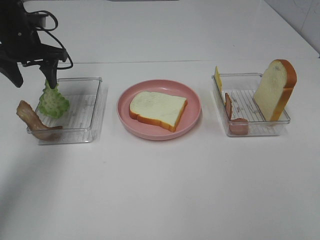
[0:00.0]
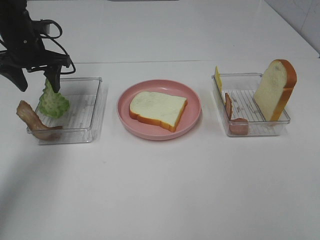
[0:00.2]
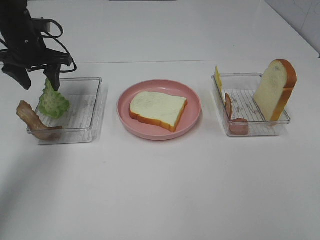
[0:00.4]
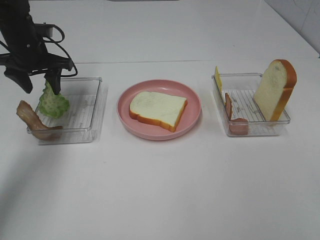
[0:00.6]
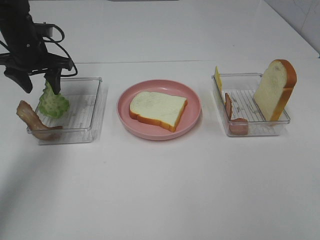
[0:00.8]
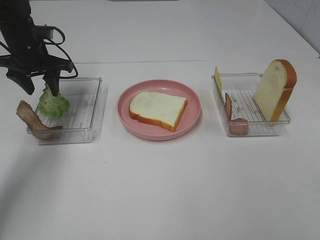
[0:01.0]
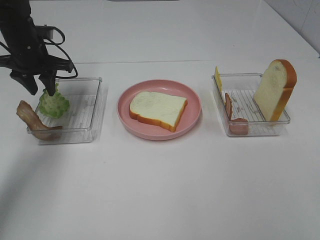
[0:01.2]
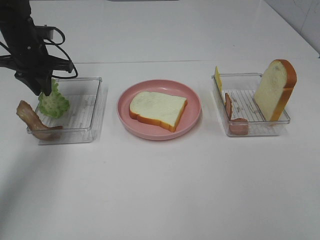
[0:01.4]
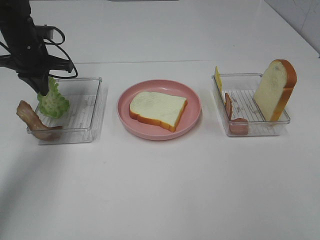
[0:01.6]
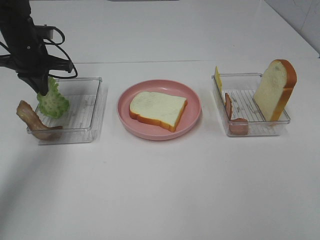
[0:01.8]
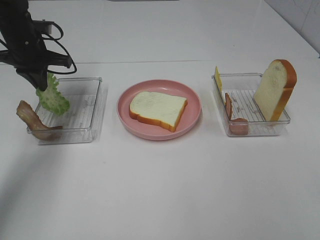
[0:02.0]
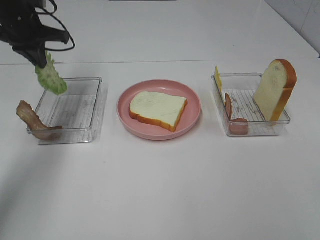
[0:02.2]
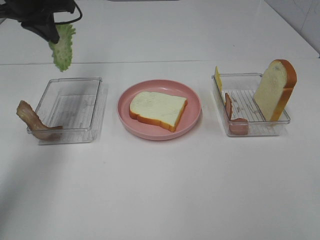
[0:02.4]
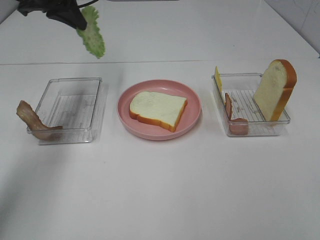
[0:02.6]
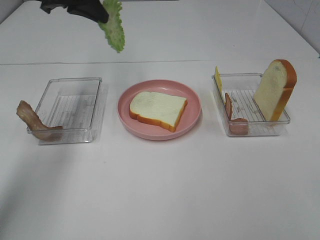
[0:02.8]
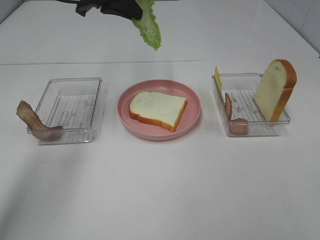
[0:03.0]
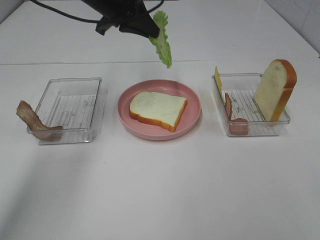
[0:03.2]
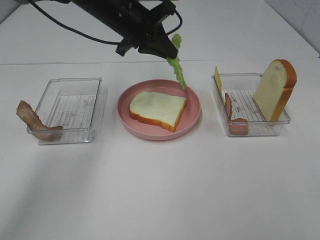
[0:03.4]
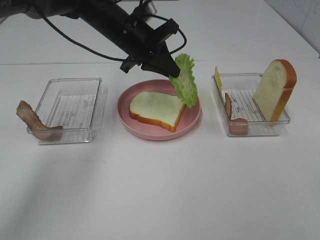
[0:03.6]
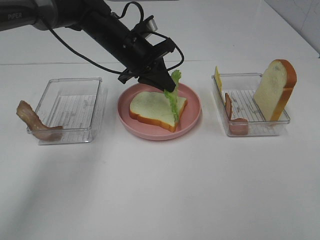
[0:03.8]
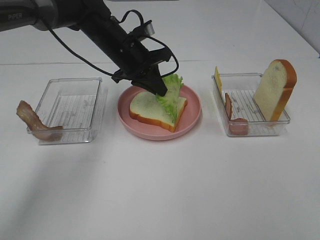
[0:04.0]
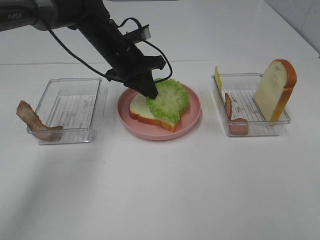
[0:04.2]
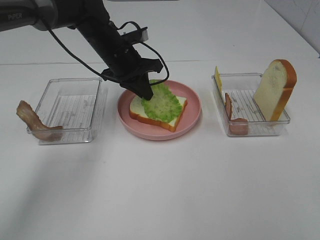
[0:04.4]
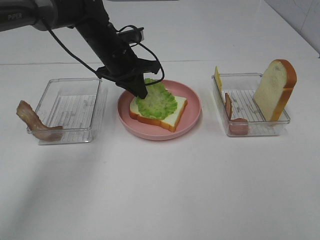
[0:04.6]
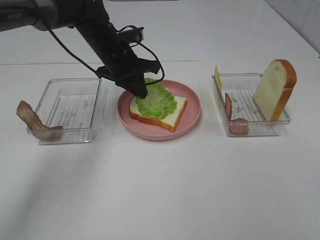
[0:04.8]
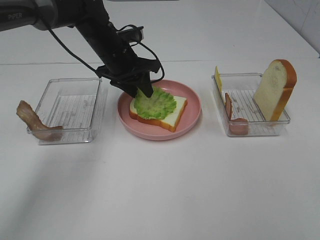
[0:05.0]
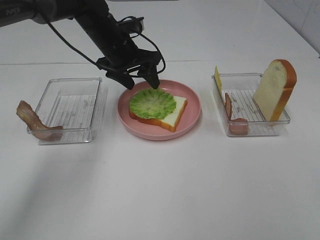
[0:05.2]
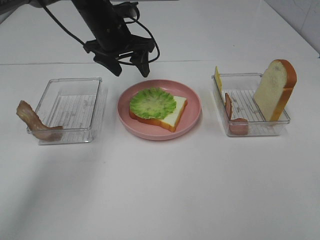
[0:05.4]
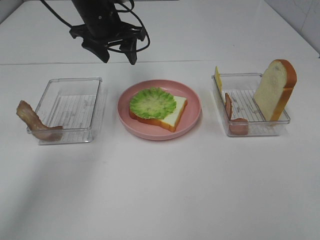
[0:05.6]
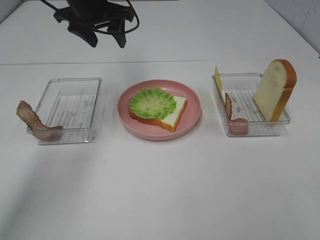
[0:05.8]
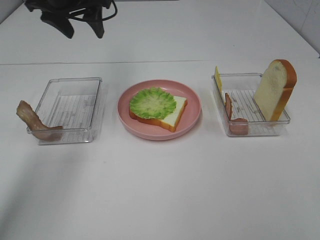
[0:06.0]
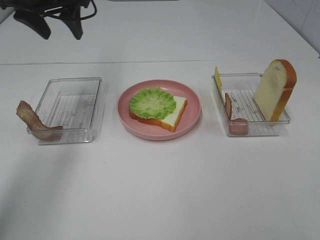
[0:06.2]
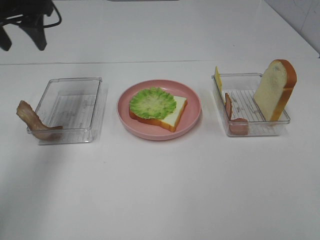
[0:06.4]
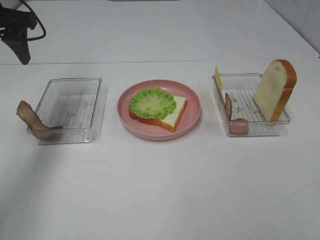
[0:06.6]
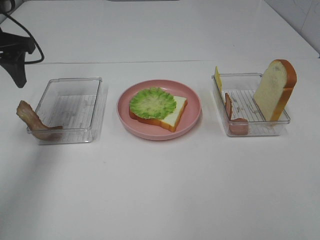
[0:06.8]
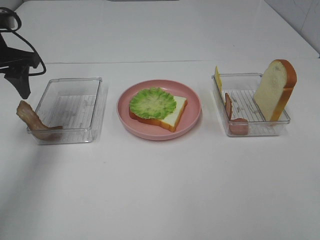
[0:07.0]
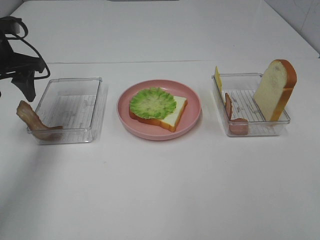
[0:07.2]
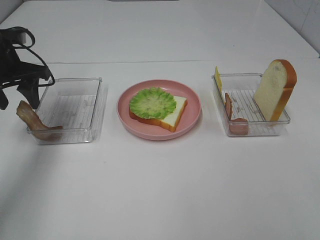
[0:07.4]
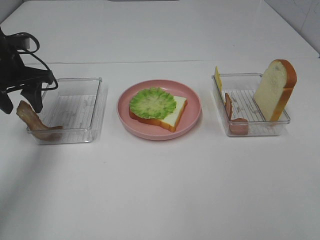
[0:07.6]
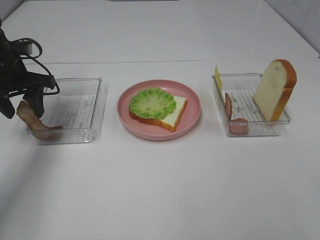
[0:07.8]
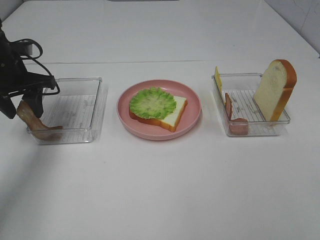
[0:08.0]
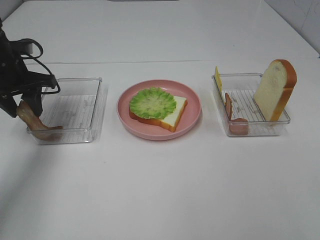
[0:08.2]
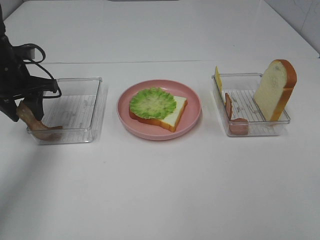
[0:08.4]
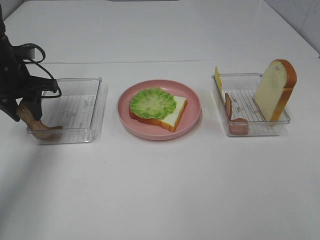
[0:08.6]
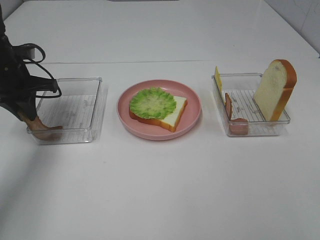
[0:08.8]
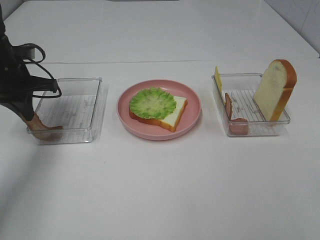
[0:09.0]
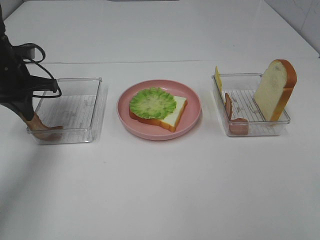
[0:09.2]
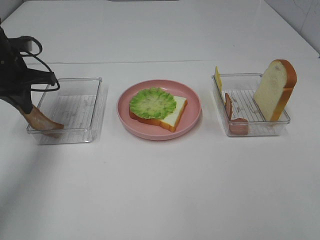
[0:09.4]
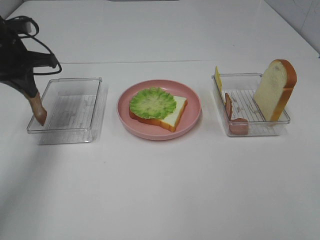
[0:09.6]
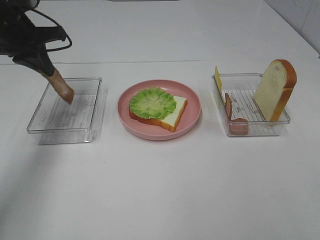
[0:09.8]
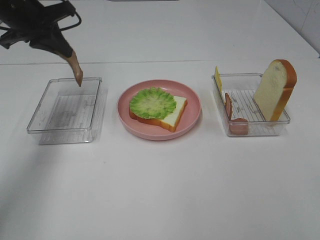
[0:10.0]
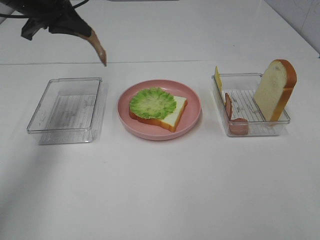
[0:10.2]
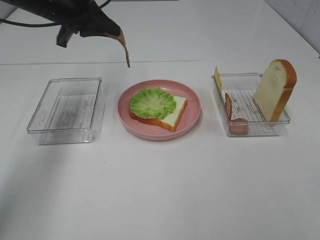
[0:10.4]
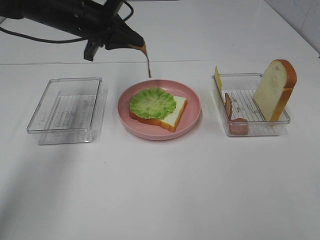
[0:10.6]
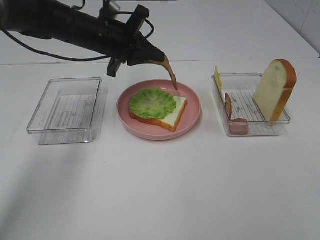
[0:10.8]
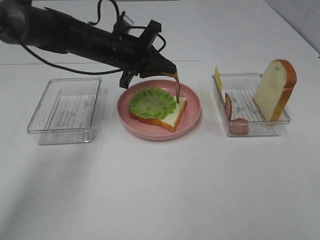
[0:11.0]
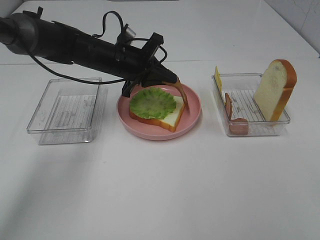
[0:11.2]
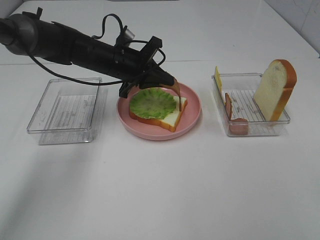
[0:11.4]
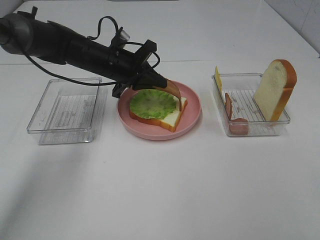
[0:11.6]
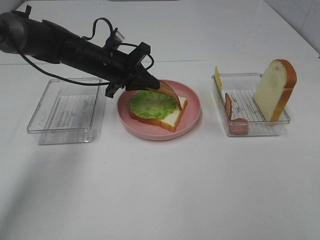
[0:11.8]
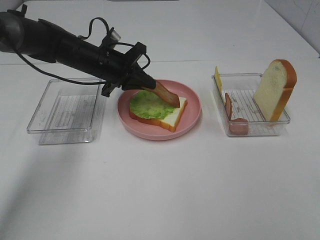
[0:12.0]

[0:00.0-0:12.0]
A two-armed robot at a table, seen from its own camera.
Task of the whole recording: Make sandwiches.
Step, 0:01.6 to 0:05.2: Left hand:place the lettuce slice on the bread slice.
Step, 0:05.4 to 0:08.8: Left hand:grab the bacon.
0:00.0 to 0:01.6: The left gripper closes up.
0:01.6 to 0:03.0: The left gripper shifts about 20 cm to the right and upward.
0:03.0 to 0:04.4: The left gripper shifts about 15 cm downward.
0:04.4 to 0:06.0: The left gripper heads upward and to the left, covering some 15 cm, and opens up.
0:06.0 to 0:07.6: The left gripper heads downward, to the left and backward, covering approximately 15 cm.
0:07.6 to 0:09.0: The left gripper closes up.
0:09.0 to 0:10.4: The left gripper is displaced to the right and upward by roughly 15 cm.
0:10.4 to 0:12.0: The left gripper is displaced downward and to the right by some 15 cm.

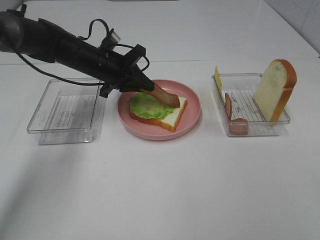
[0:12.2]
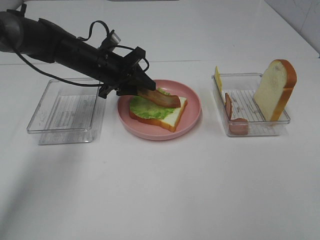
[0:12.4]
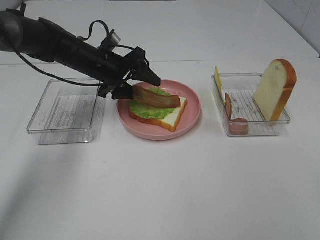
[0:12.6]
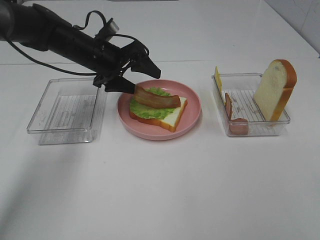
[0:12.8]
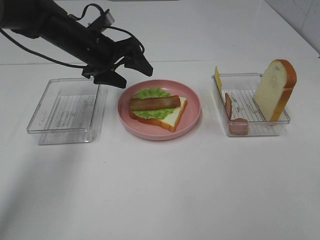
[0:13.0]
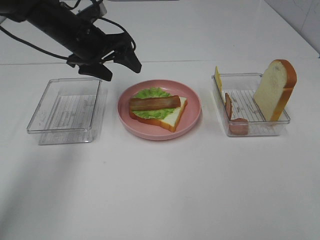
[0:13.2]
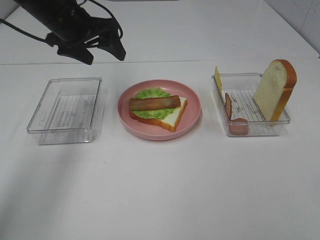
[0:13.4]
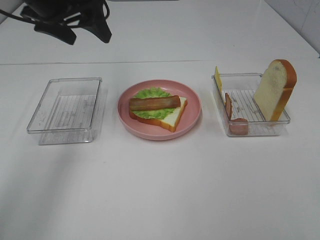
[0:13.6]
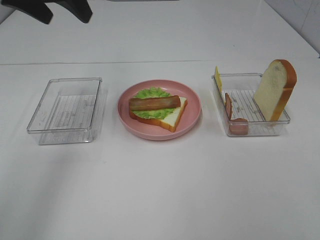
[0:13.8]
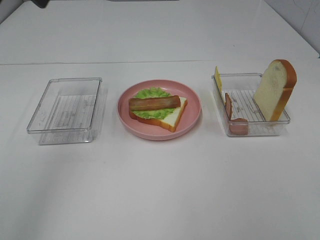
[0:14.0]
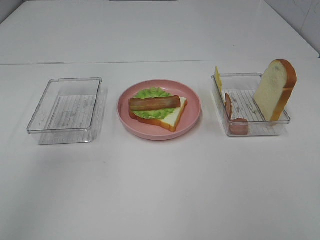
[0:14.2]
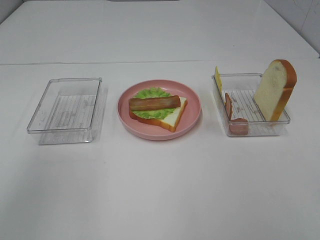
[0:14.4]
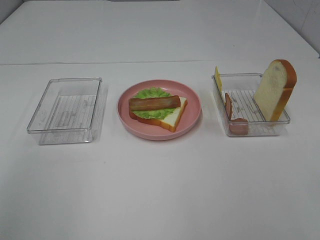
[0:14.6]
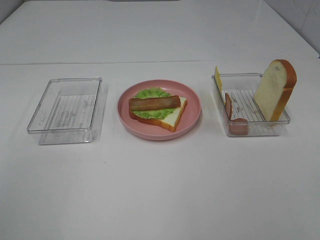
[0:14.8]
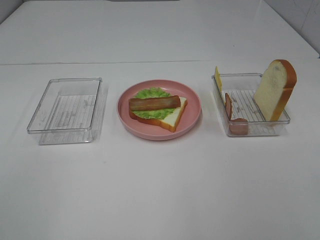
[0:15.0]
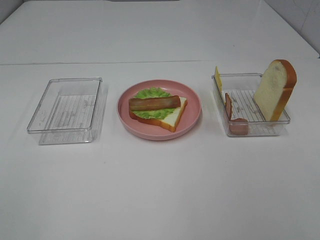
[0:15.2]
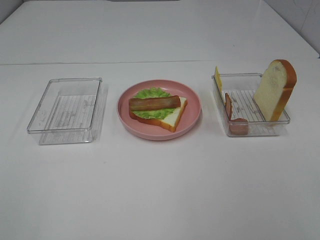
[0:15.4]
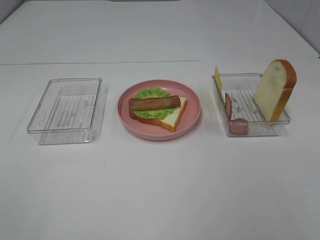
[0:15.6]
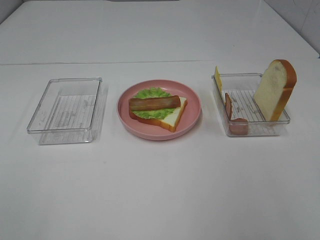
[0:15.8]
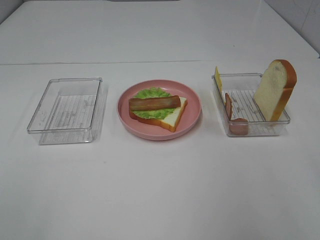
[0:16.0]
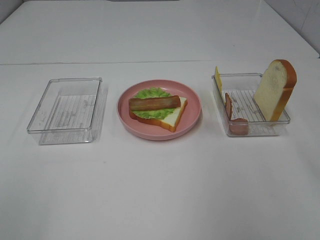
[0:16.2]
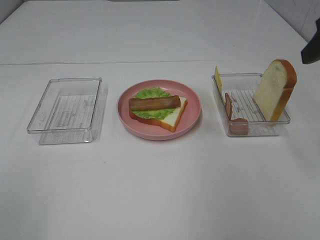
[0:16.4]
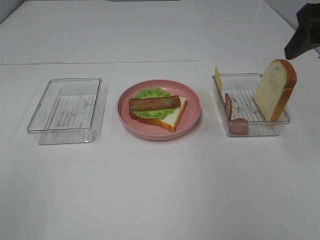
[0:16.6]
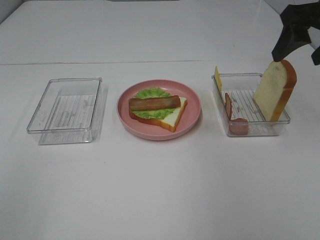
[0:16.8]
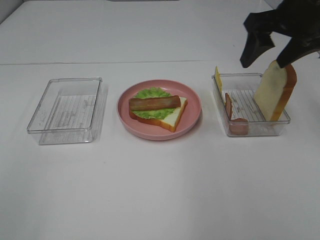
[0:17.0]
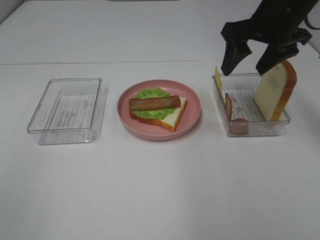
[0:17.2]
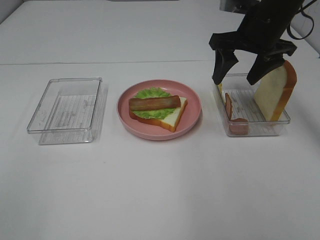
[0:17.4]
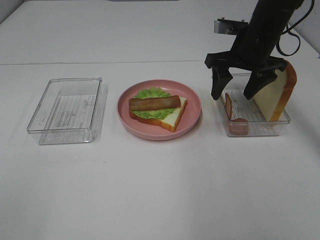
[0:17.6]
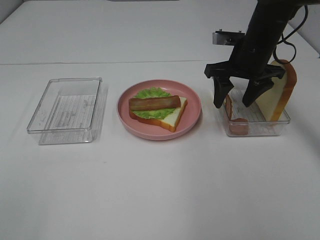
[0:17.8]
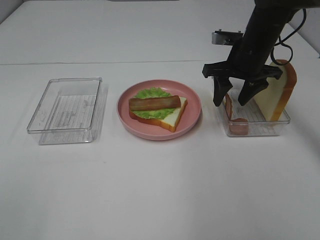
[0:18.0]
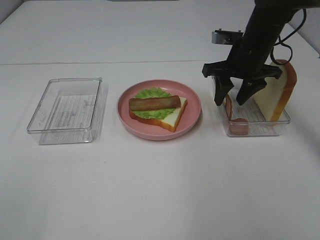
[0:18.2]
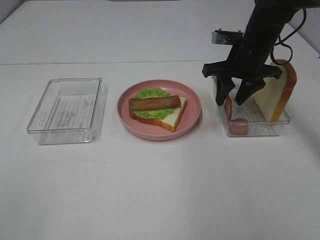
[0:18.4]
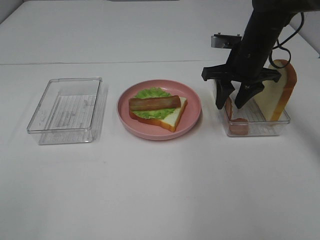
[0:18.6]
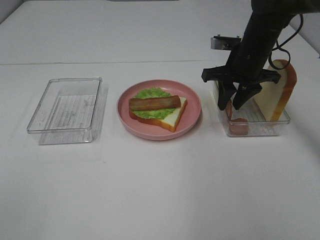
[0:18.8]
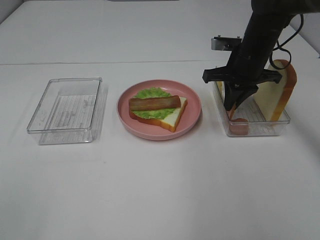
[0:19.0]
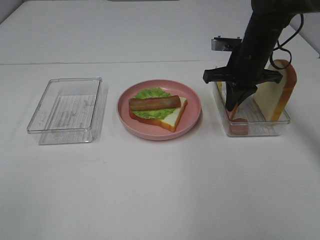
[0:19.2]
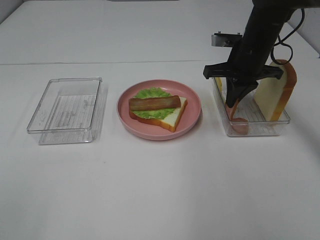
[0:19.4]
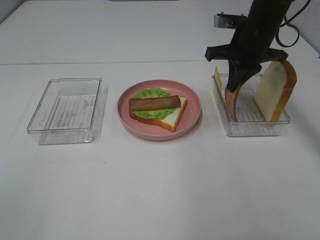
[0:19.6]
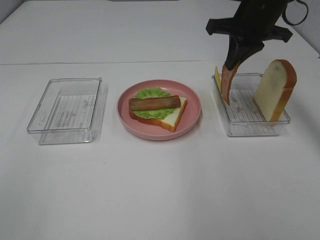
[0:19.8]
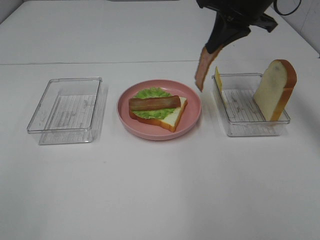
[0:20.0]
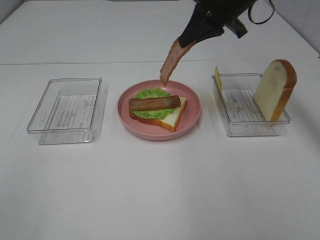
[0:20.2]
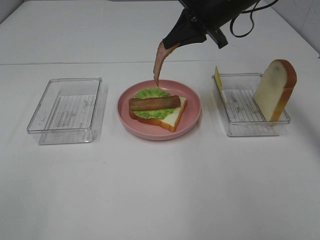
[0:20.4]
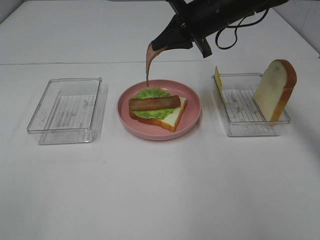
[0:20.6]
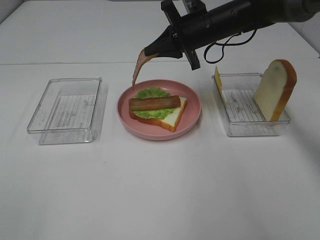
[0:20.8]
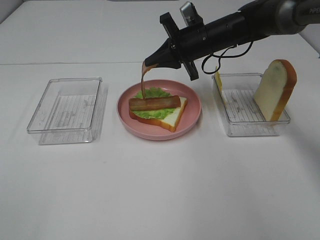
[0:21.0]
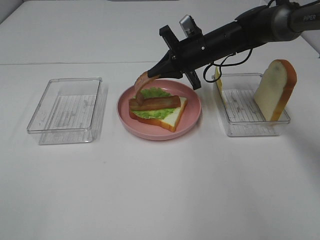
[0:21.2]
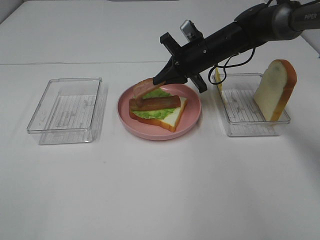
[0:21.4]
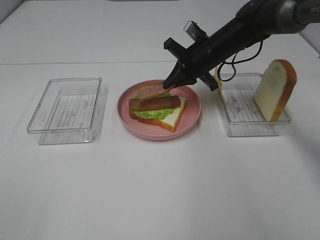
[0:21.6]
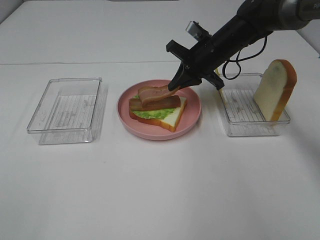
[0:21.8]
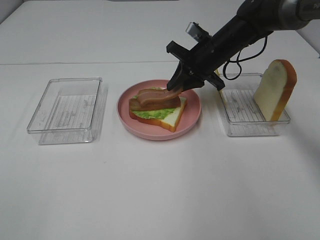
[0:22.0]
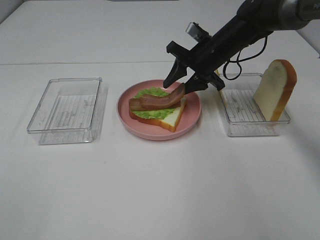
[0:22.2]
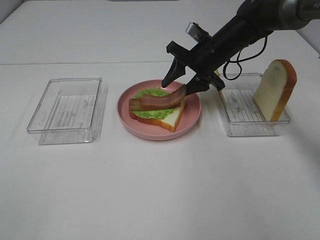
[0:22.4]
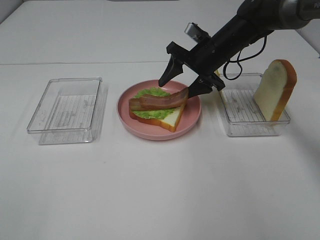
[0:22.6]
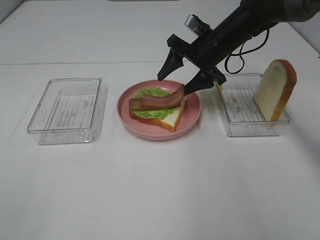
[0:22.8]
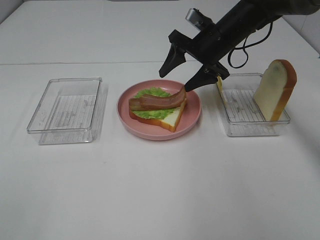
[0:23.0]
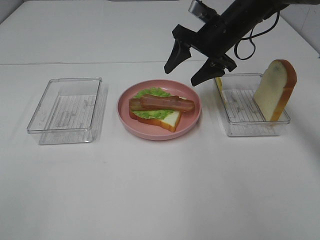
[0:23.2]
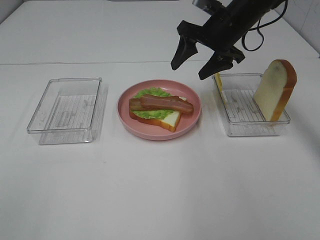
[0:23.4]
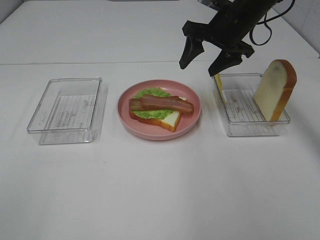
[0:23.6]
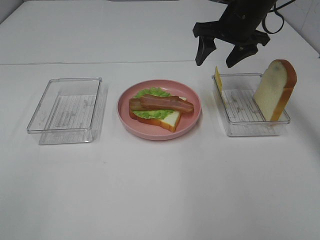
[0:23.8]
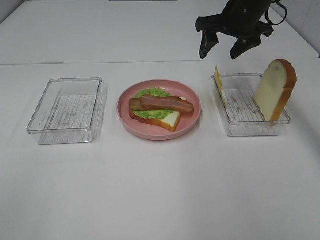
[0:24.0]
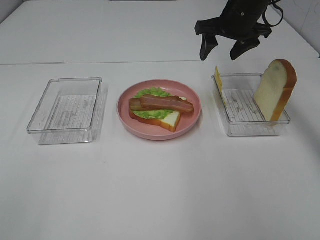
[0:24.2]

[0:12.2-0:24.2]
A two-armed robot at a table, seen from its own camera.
Task of the whole recording: Make sandwiches.
Step, 0:13.2 to 0:19.2: Right hand:grab the bacon.
Step, 0:19.4 to 0:23.0: Right hand:place bacon on bacon.
0:12.2 to 0:13.8: The left gripper travels upward by some 25 cm, and opens.
0:13.8 to 0:15.2: The left gripper shifts roughly 40 cm backward.
0:15.2 to 0:16.6: The right gripper shifts about 30 cm forward.
0:16.6 to 0:18.2: The right gripper heads downward, forward and to the left, covering approximately 20 cm.
0:18.2 to 0:19.8: The right gripper heads upward, covering roughly 10 cm, and closes up.
0:19.8 to 0:21.2: The right gripper is displaced downward and to the left by about 15 cm.
0:21.2 to 0:22.6: The right gripper opens.
0:22.6 to 0:24.2: The right gripper heads upward, covering some 10 cm.
